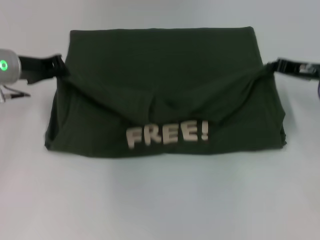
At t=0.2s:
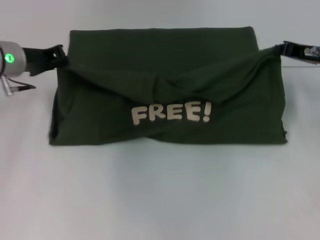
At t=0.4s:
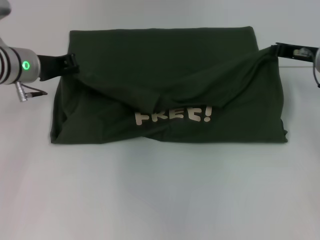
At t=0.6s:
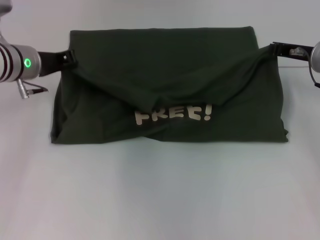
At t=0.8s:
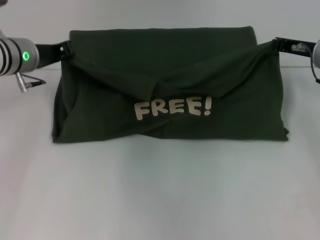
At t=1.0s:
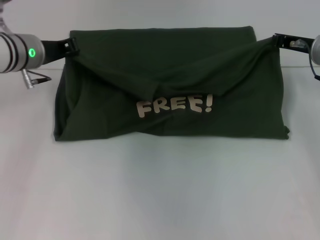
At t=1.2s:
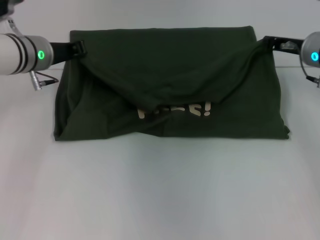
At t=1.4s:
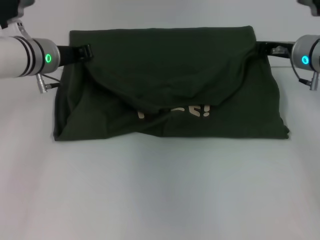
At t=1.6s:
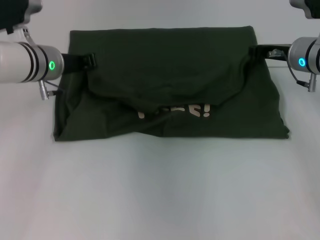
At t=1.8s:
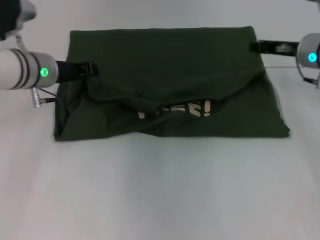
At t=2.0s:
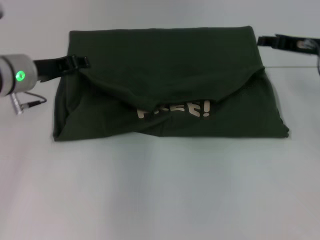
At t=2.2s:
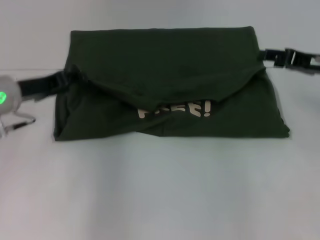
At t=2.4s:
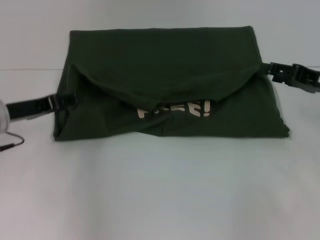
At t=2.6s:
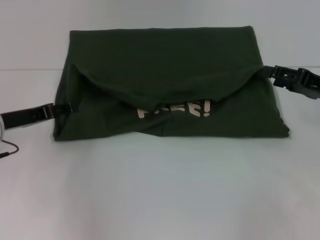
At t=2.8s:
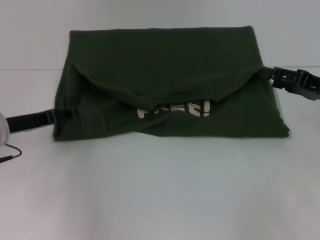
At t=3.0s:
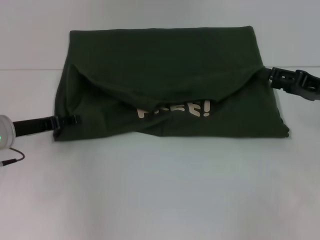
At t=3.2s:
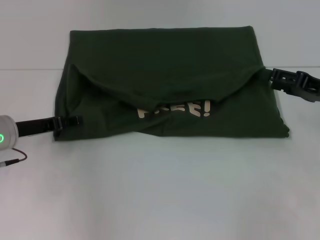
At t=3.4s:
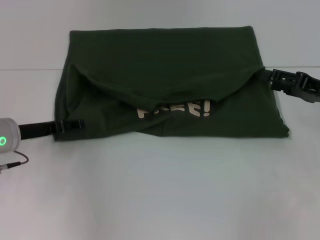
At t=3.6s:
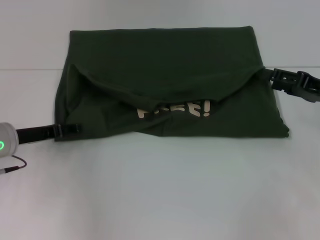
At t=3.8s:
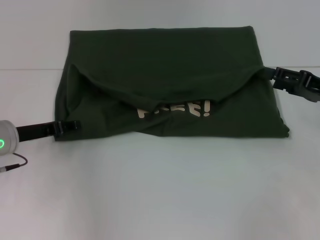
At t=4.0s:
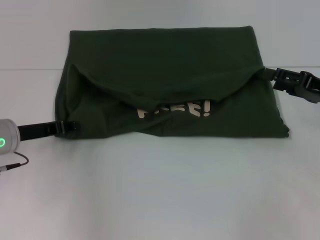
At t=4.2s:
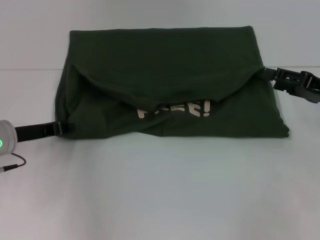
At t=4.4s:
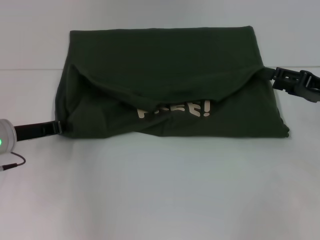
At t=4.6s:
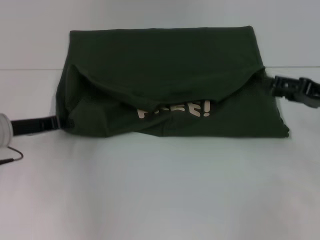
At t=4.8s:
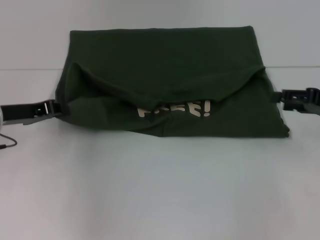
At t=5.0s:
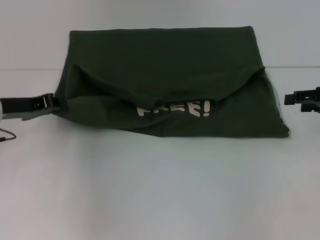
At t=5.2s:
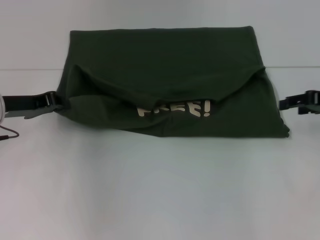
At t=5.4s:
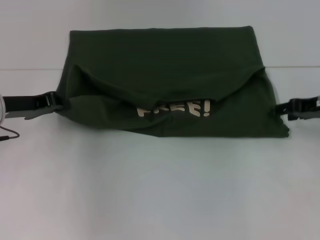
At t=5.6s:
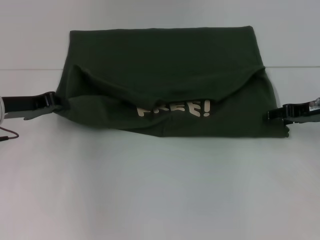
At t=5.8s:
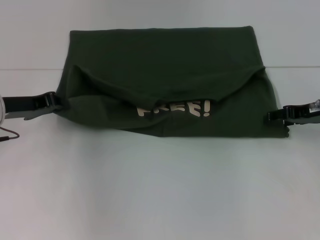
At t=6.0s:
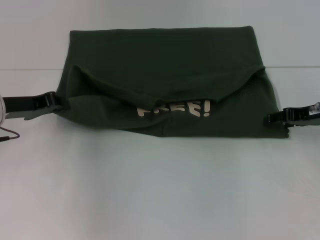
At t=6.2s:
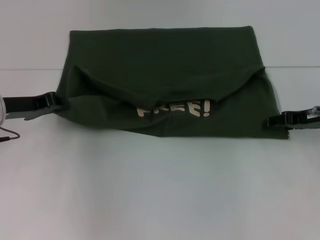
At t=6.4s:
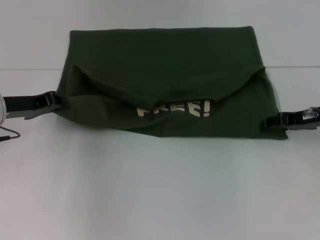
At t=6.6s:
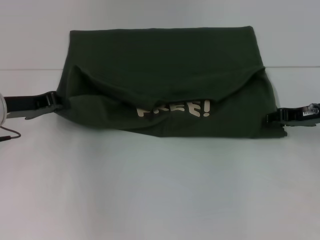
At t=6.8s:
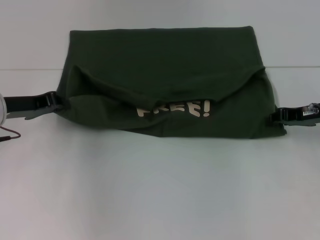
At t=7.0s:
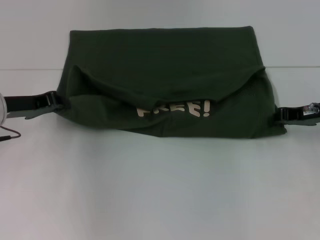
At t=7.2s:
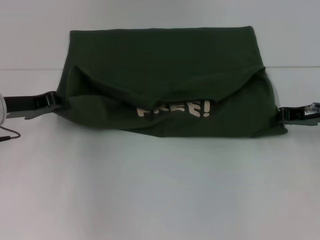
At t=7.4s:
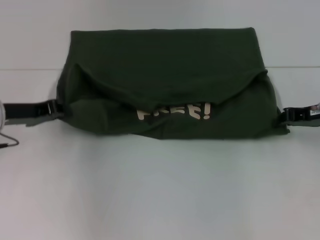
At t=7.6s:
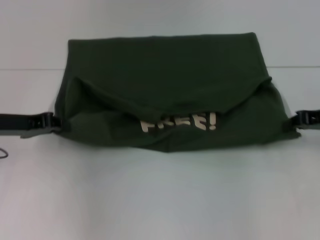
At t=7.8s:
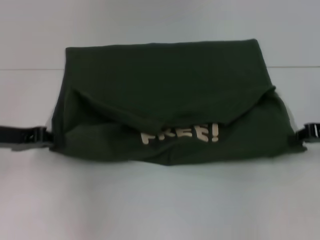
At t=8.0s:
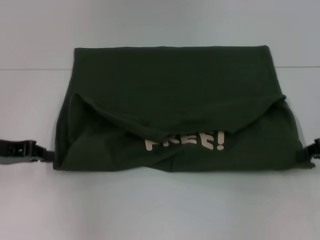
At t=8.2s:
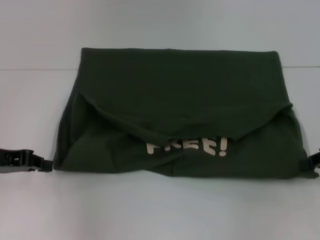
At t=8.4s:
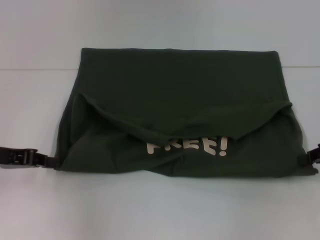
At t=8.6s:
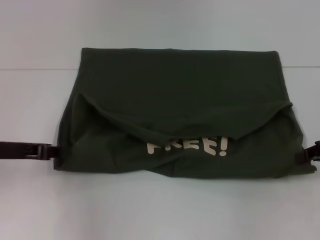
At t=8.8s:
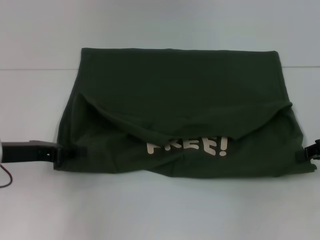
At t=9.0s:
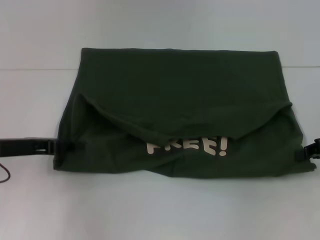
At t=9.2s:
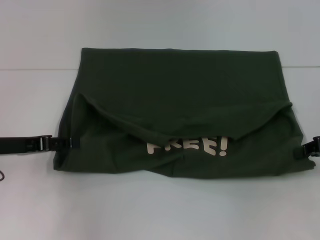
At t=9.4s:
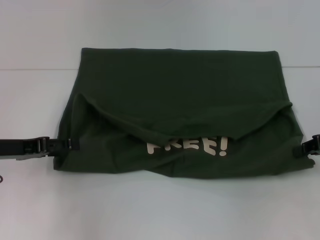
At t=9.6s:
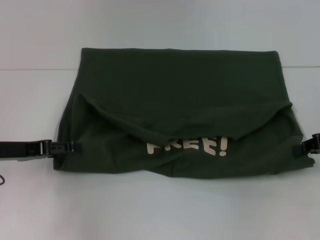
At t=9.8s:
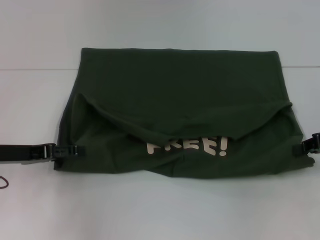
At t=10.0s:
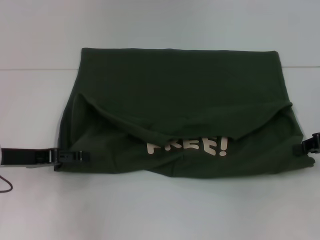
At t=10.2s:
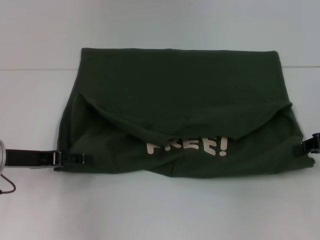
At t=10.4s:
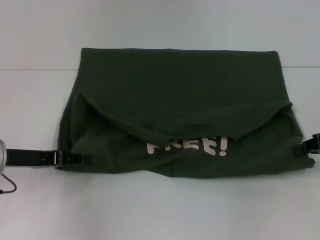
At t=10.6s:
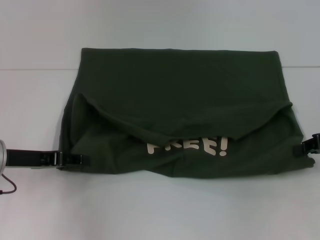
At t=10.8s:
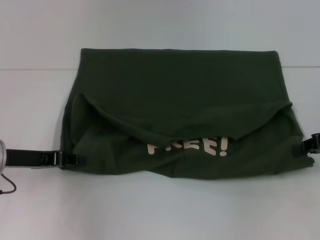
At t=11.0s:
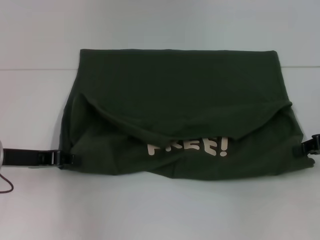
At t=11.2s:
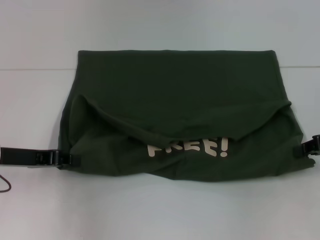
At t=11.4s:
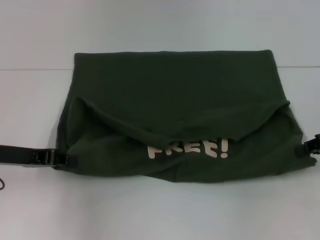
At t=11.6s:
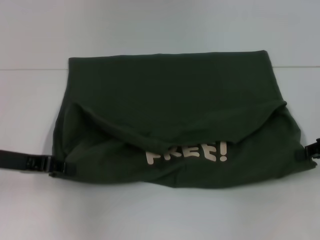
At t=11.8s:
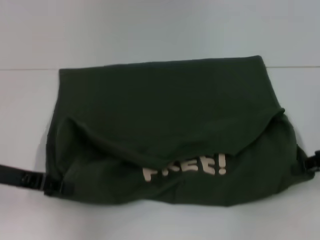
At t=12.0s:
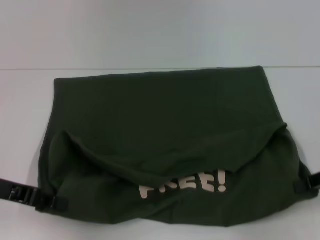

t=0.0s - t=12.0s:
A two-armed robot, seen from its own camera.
Step, t=0.0s - t=2.8s: Fold the clothes with your left hand.
Step, t=0.0s - t=2.8s: Fold the clothes with your right hand.
t=0.0s - t=1.6s: The left gripper heads to the right, covering approximately 5 cm. The right gripper travels to the left by some 5 cm.
t=1.6s - t=3.0s: The right gripper shifts about 15 cm backward and to the right, and opens; the left gripper is displaced backward, to the left and downward by about 15 cm, and opens its fingers.
t=3.0s - t=4.4s: The left gripper closes its fingers.
t=6.0s - t=7.6s: The right gripper closes its fingers.
t=9.0s - t=10.4s: The left gripper opens up.
t=10.4s - t=12.0s: The left gripper shifts by about 5 cm, and closes.

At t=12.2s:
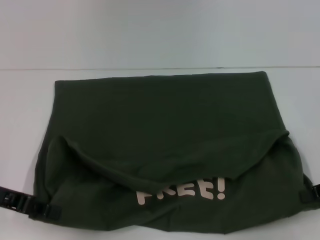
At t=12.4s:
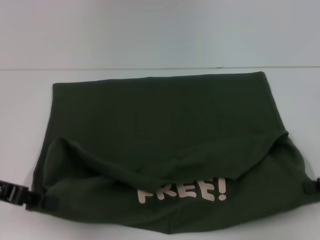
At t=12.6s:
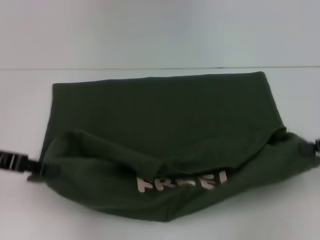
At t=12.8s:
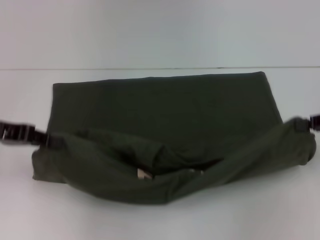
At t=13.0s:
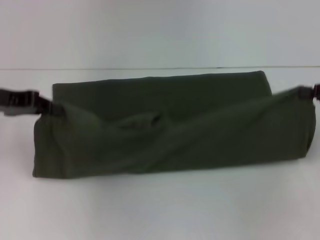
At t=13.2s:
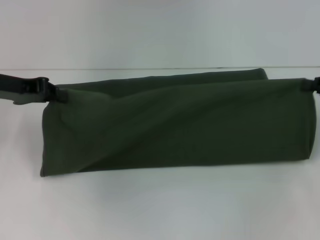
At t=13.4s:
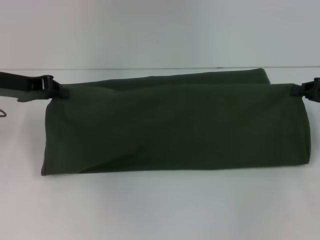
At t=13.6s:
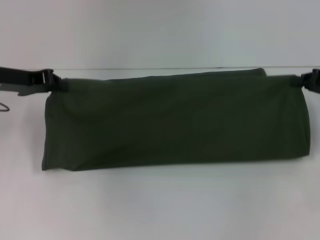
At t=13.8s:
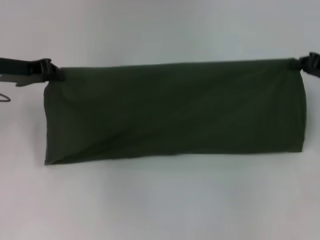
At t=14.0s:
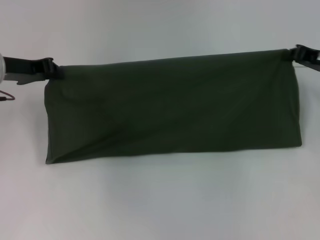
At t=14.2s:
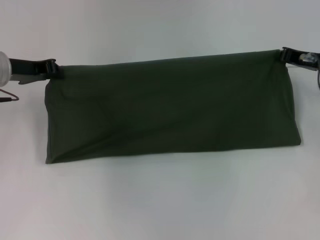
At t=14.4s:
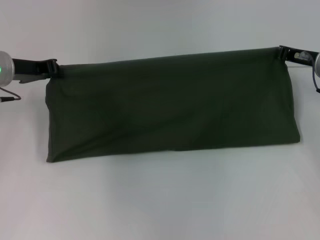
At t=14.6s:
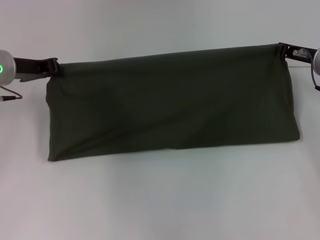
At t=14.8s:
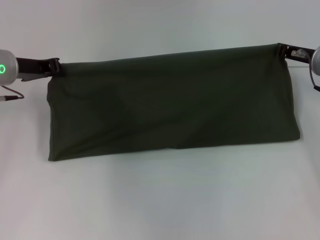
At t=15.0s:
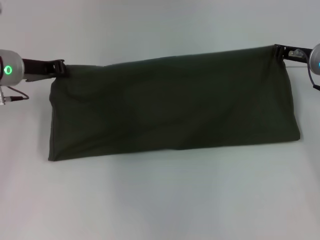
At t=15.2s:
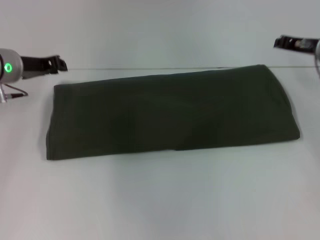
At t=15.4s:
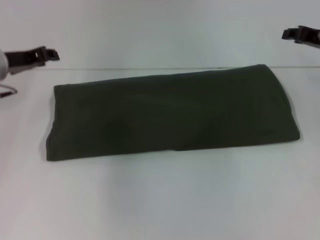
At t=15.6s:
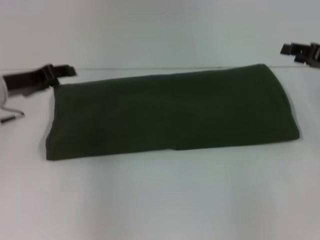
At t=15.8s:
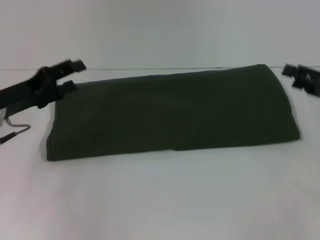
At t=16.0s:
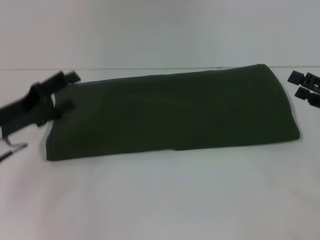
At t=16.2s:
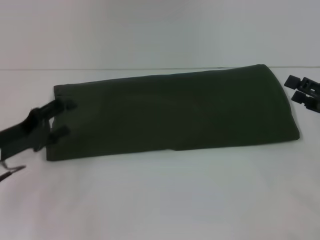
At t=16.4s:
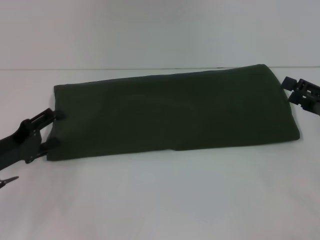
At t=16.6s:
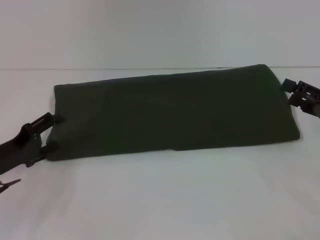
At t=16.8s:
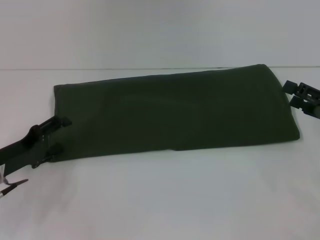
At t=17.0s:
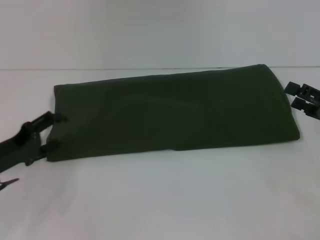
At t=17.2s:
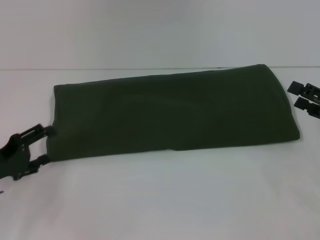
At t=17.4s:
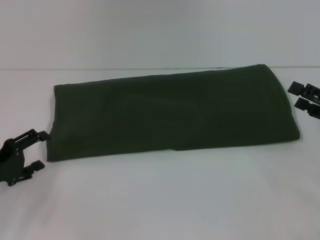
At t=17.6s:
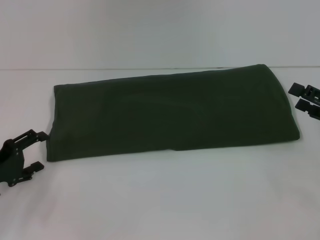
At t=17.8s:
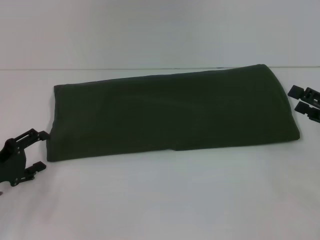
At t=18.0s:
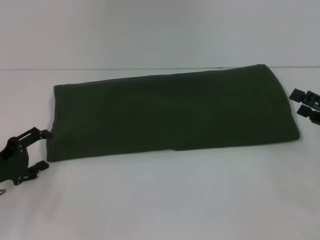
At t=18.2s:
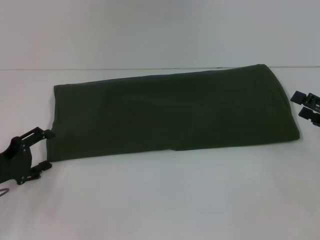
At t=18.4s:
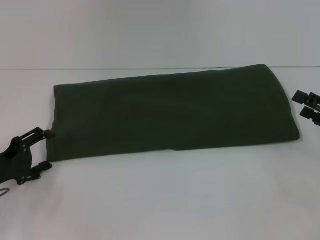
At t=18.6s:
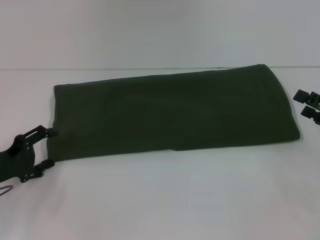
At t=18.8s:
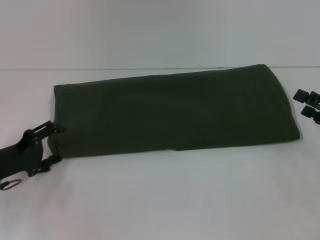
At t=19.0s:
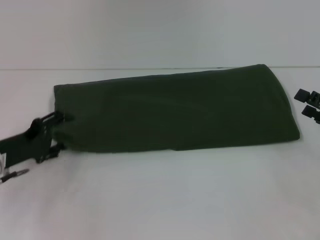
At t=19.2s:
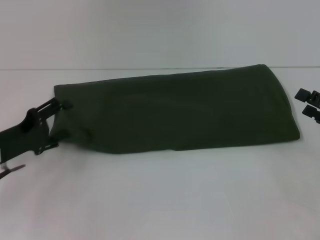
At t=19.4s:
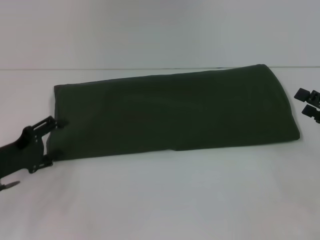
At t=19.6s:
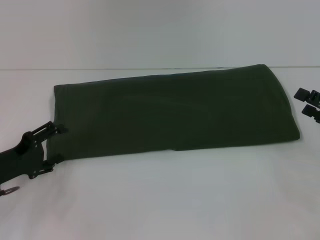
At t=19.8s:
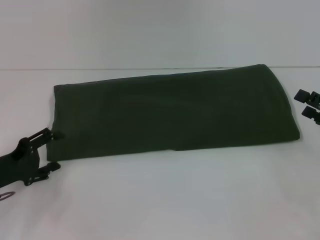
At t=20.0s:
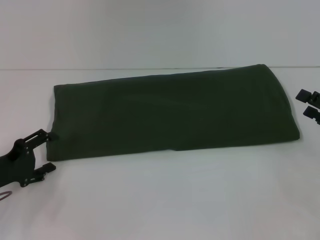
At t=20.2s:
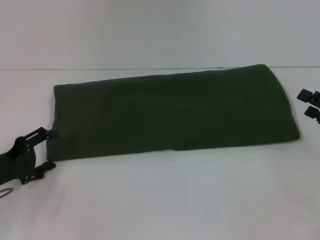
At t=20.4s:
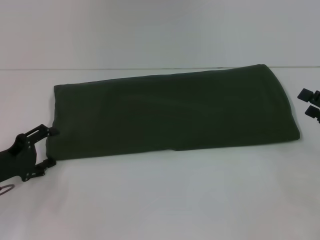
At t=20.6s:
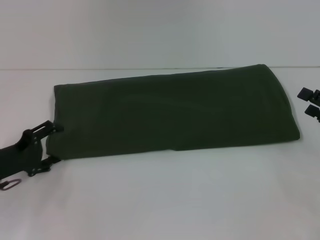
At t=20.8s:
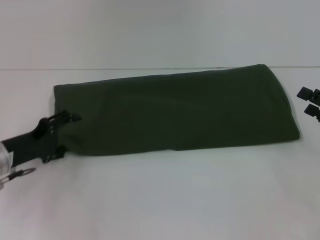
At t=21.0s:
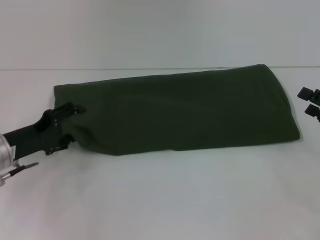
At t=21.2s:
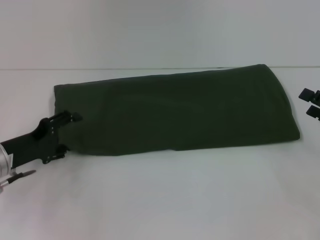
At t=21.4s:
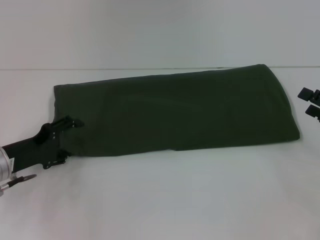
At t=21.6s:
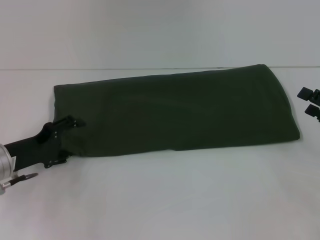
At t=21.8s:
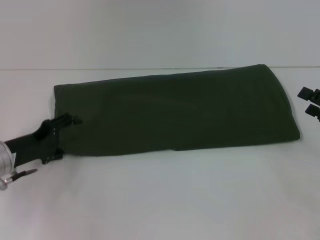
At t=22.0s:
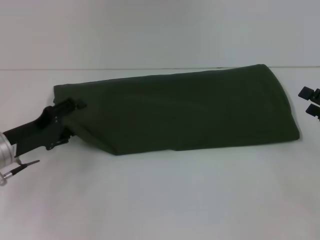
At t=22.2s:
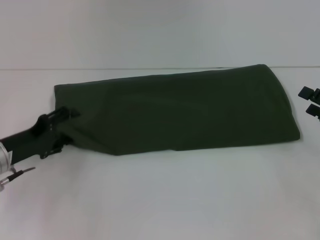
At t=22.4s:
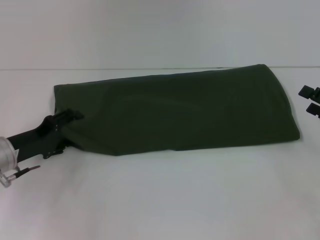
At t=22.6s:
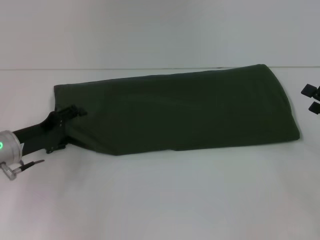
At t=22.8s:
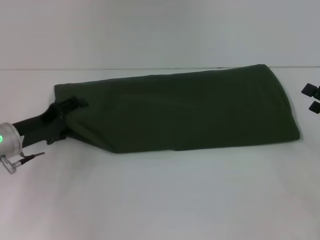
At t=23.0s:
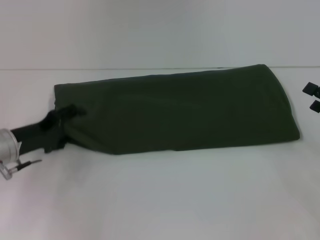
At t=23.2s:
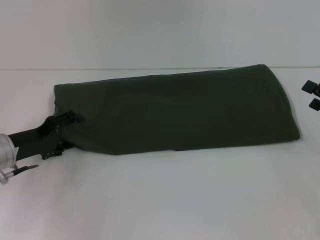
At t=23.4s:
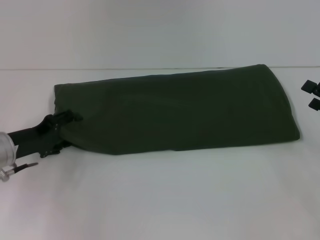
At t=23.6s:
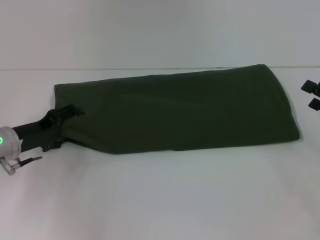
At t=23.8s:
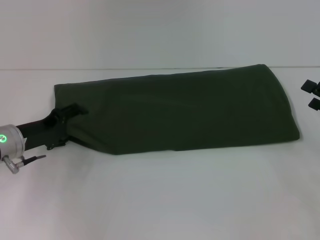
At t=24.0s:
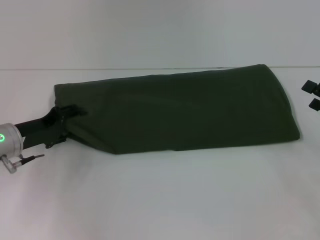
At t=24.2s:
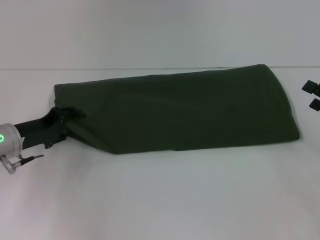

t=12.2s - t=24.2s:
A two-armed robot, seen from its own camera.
Step, t=12.4s - t=16.8s: Fold the clothes with your right hand.
t=12.2s - t=13.8s: The grippers both shift forward by approximately 10 cm.
t=13.8s - t=15.2s: The right gripper moves forward and to the left, roughly 10 cm.
t=15.2s - t=16.6s: The left gripper shifts roughly 20 cm backward and downward, and opens its fingers, while the right gripper is displaced backward and to the right by roughly 15 cm, and opens its fingers.
t=16.6s - t=22.6s: The grippers move only a little.
t=22.6s - t=24.2s: Both grippers stay put.
